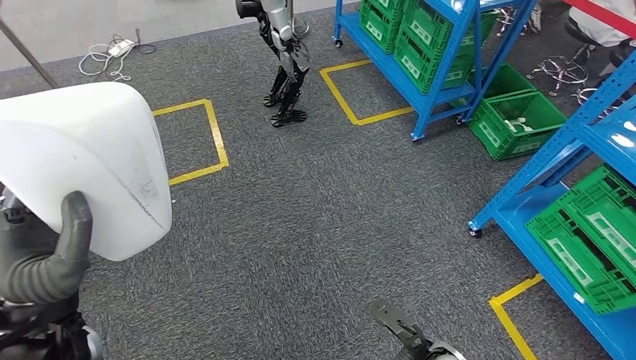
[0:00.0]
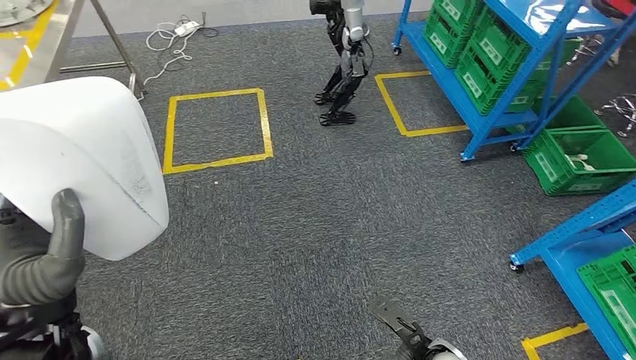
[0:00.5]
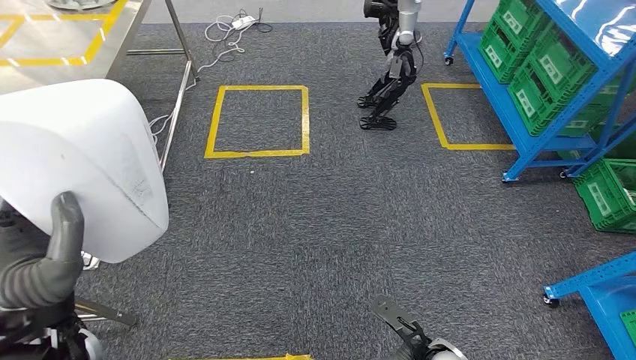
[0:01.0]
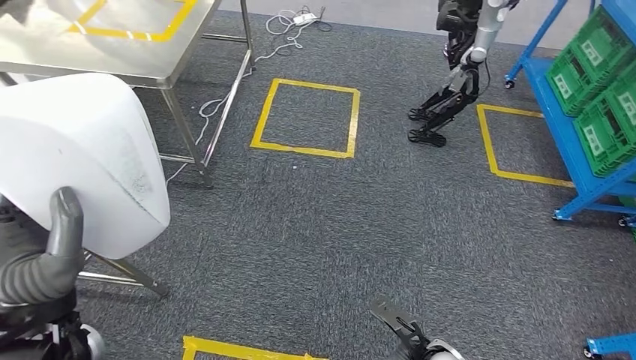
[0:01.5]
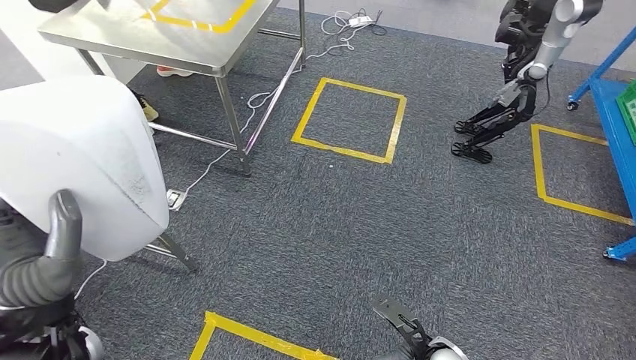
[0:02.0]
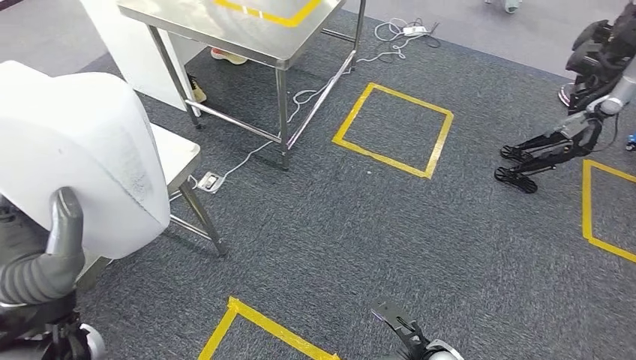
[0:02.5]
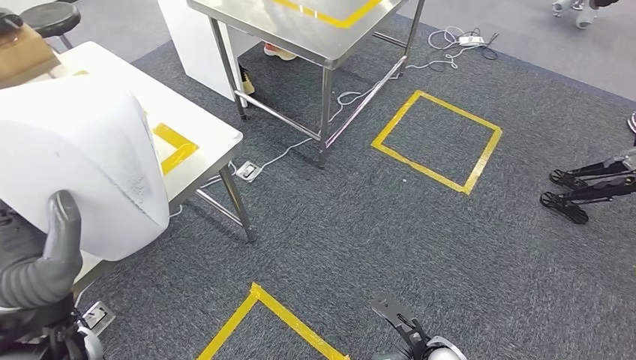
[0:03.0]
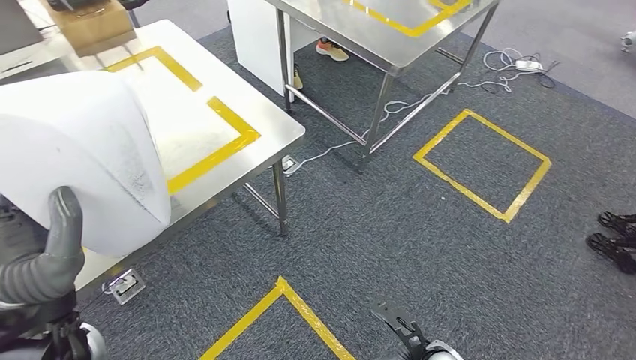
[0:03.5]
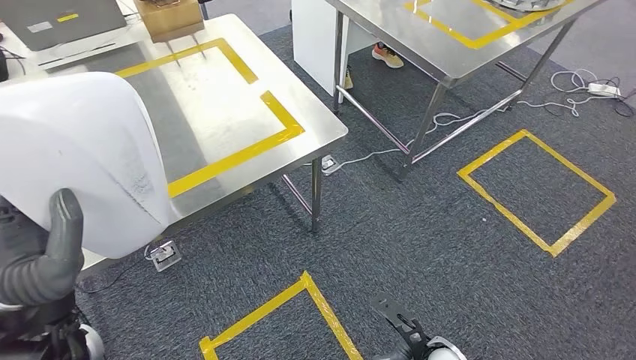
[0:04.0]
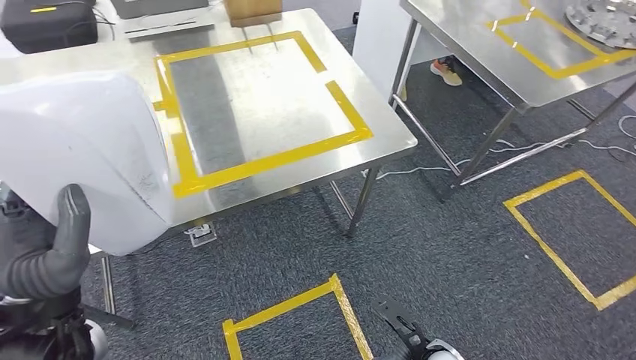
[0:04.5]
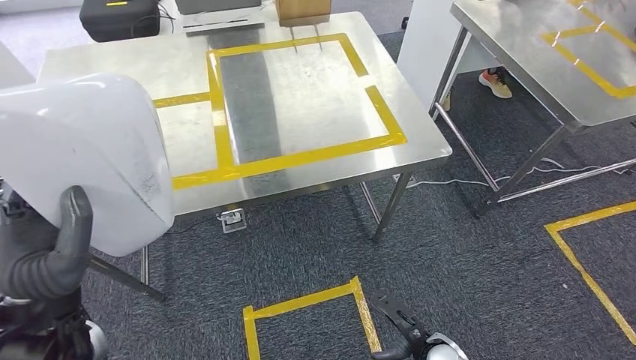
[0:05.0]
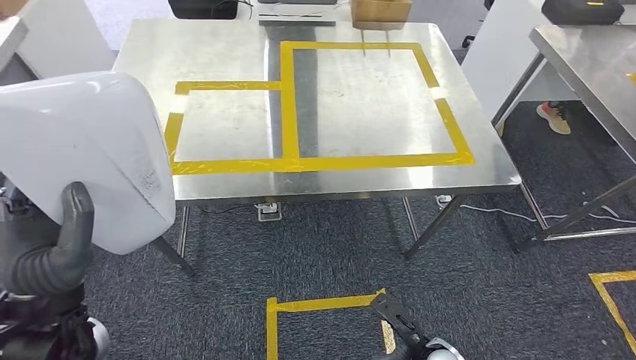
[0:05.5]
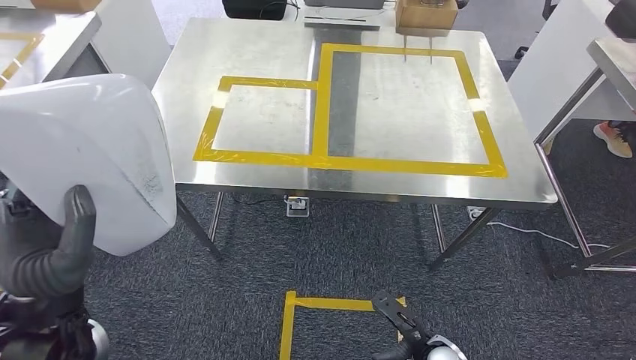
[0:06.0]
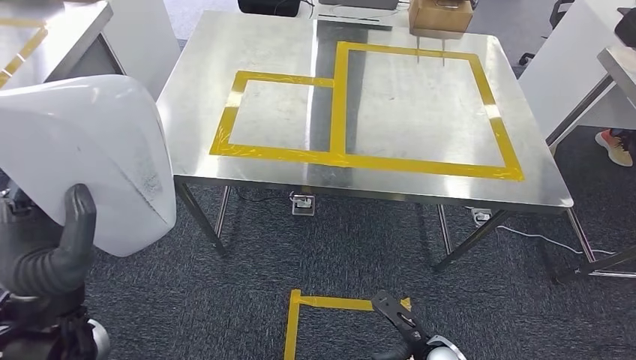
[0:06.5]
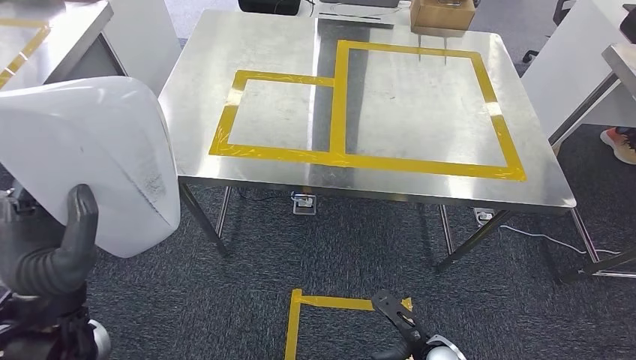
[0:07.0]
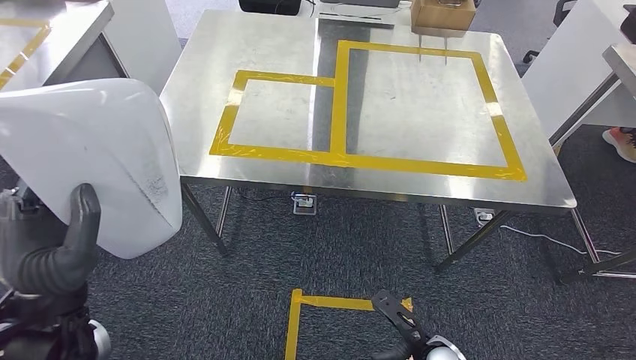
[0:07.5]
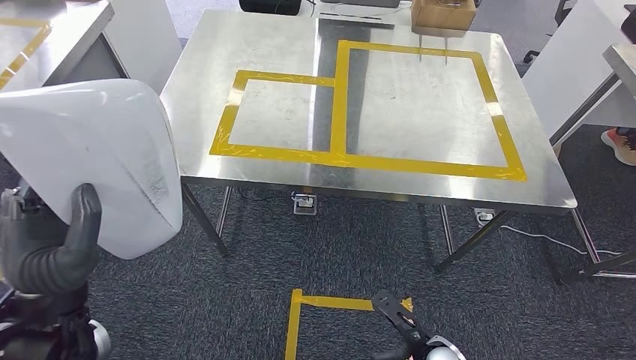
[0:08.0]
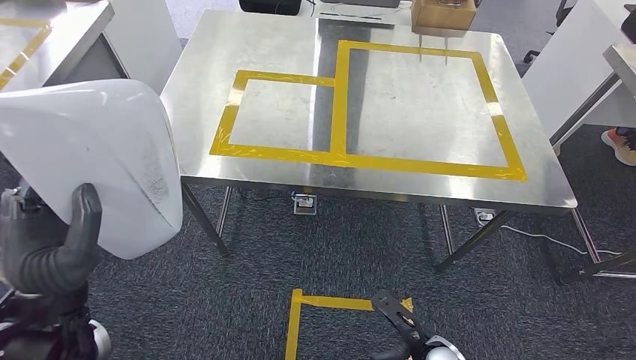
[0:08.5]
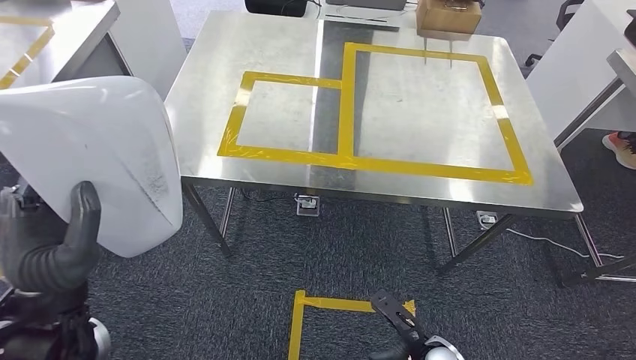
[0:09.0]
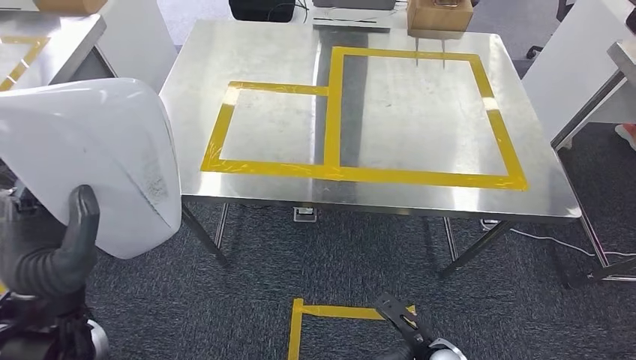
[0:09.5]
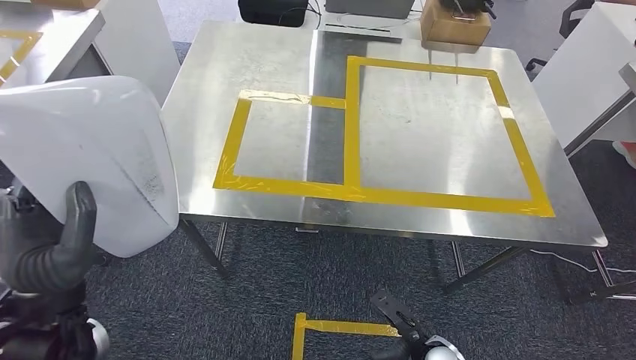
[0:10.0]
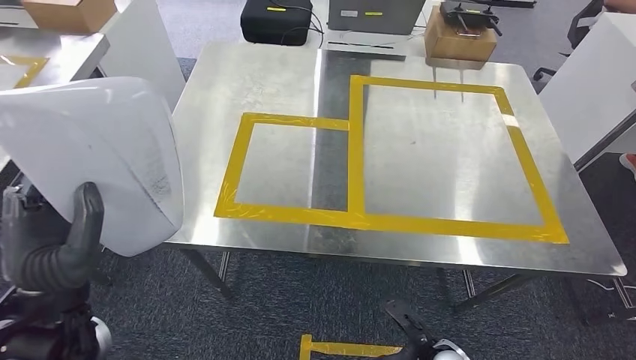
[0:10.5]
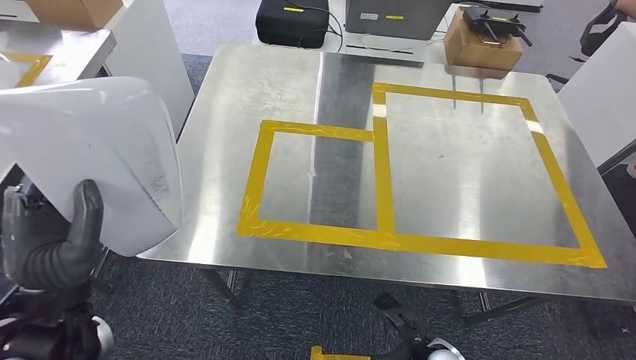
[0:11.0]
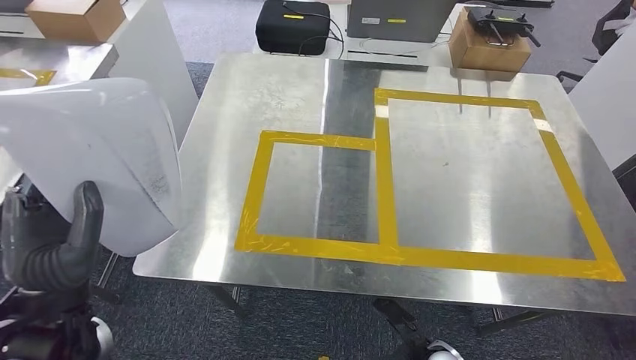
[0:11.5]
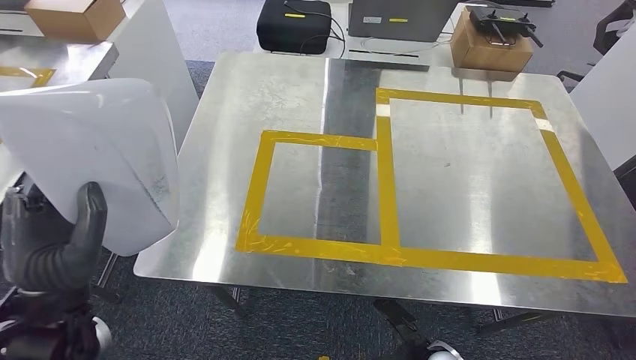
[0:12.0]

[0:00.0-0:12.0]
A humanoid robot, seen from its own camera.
Step, 0:00.0 to 0:11.0: Move the small parts to the workbench.
0:06.0 to 0:08.0: The two hands keep their place.

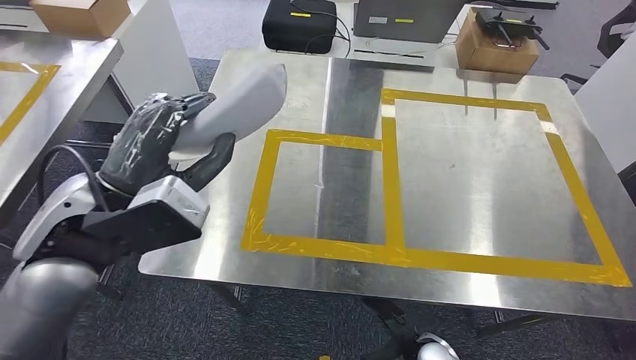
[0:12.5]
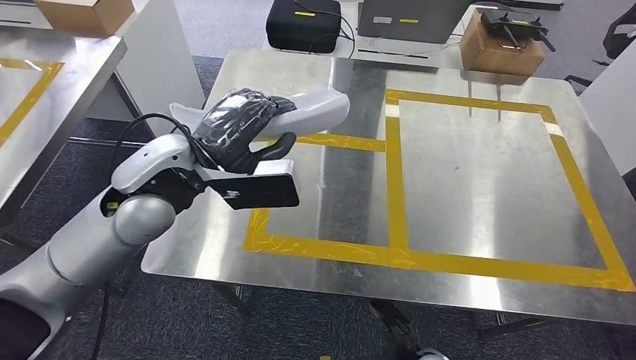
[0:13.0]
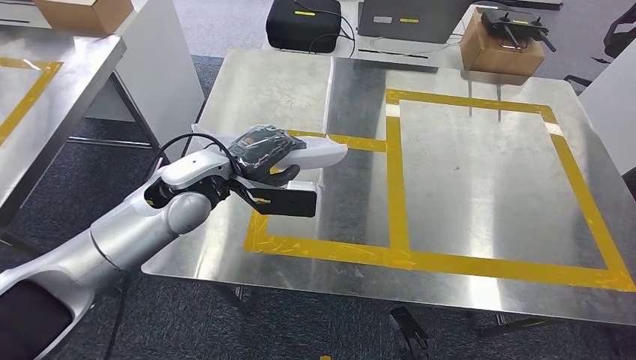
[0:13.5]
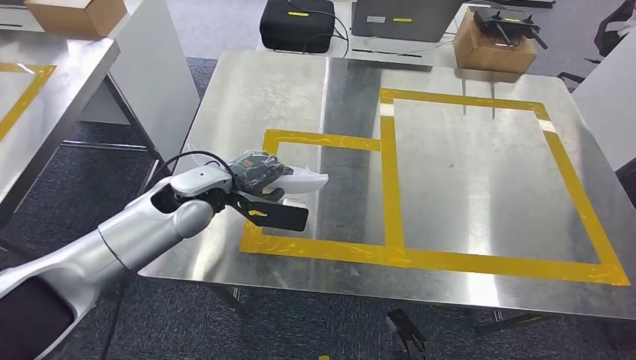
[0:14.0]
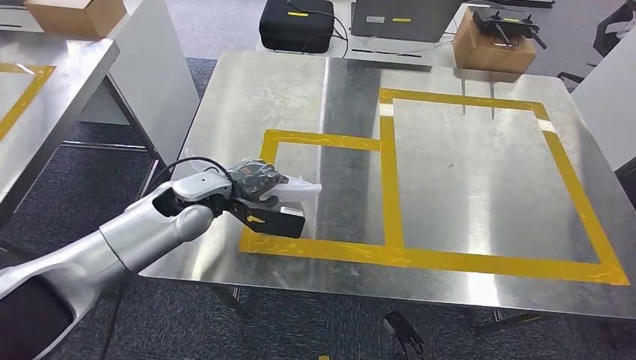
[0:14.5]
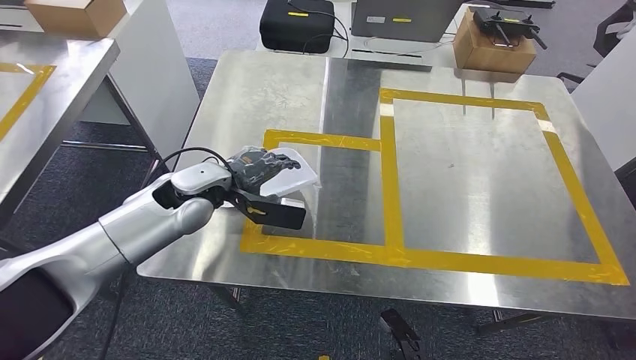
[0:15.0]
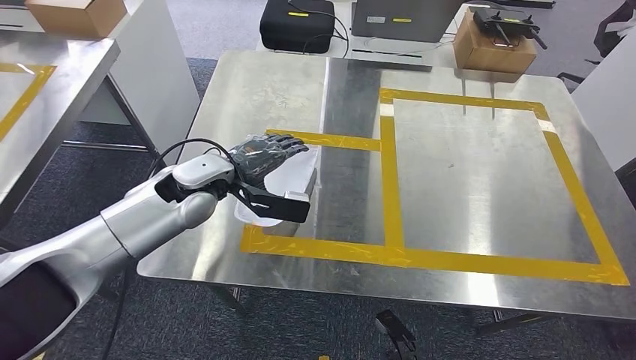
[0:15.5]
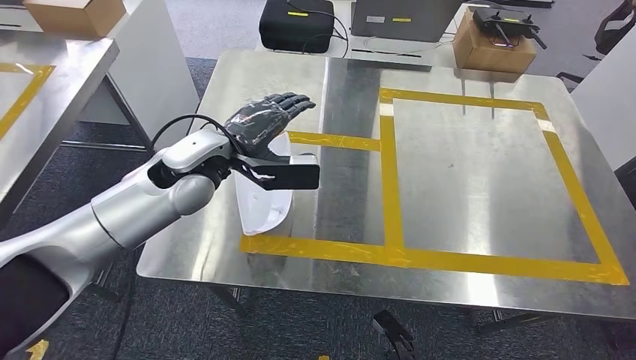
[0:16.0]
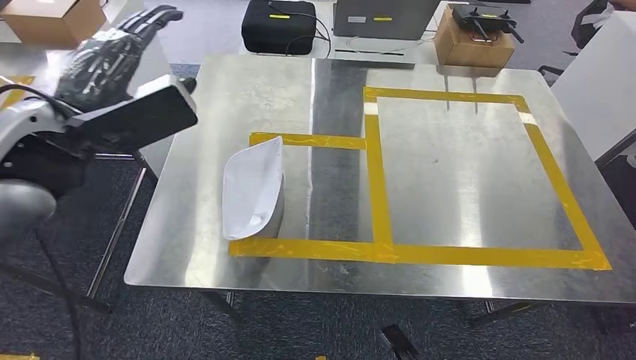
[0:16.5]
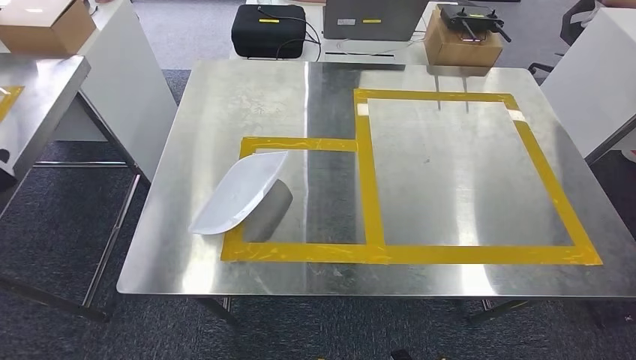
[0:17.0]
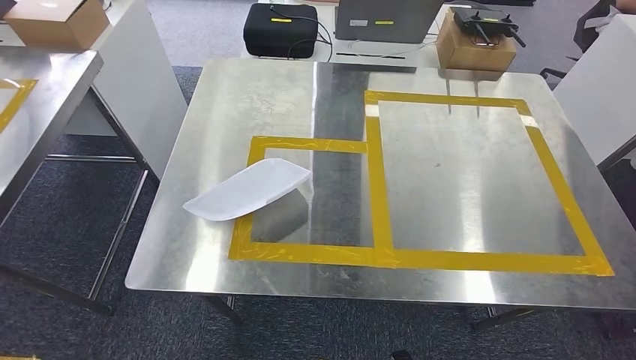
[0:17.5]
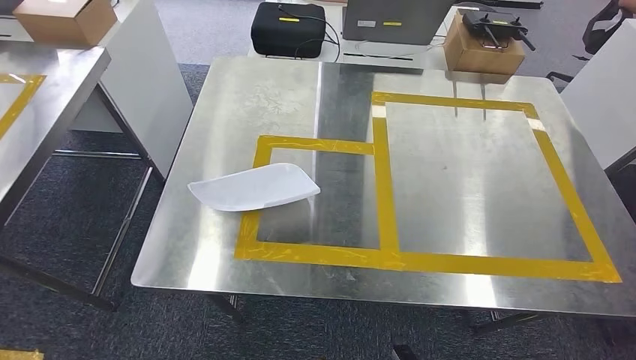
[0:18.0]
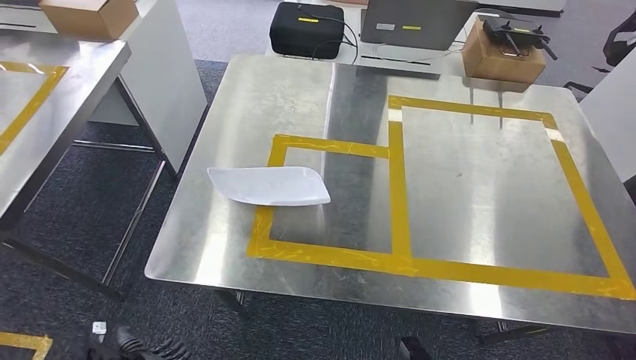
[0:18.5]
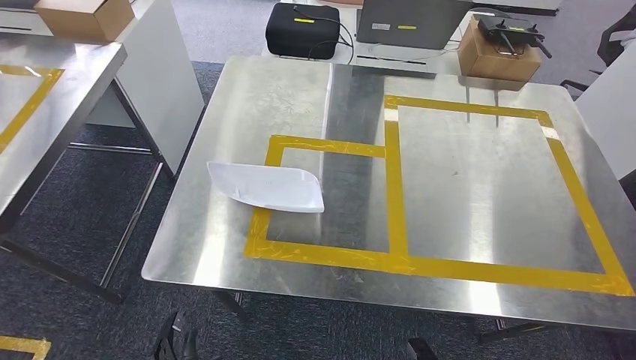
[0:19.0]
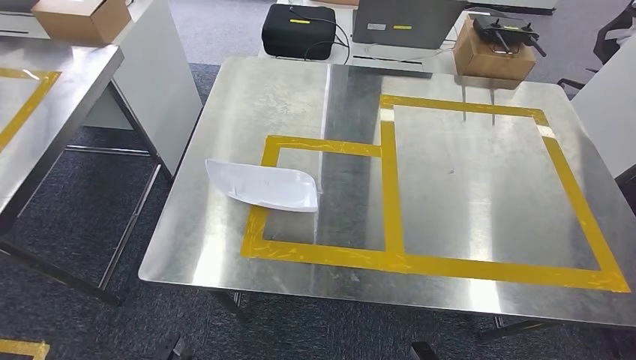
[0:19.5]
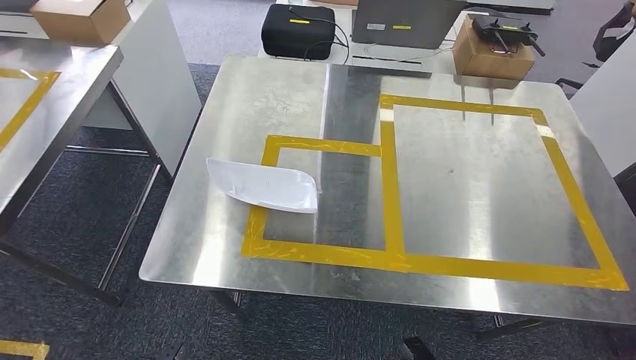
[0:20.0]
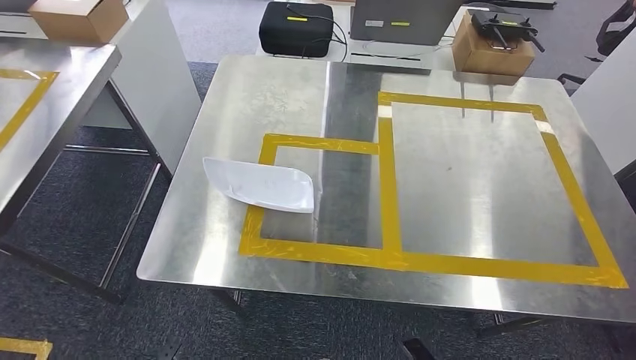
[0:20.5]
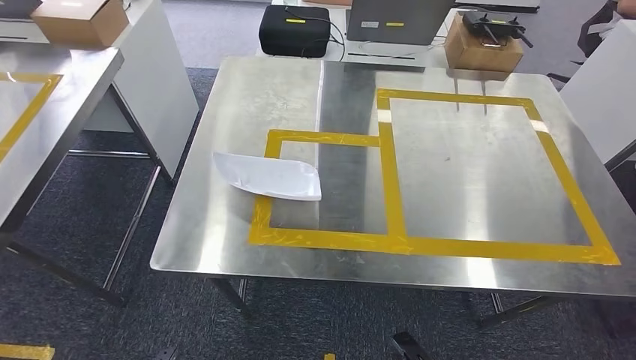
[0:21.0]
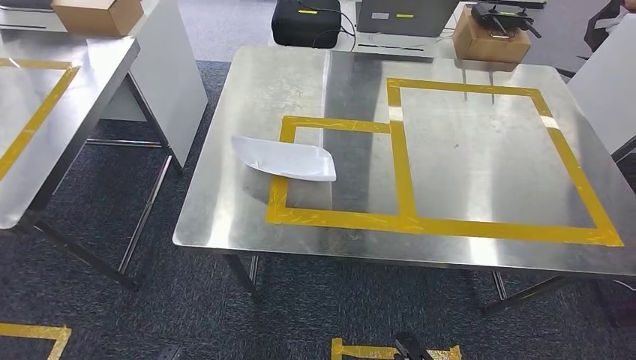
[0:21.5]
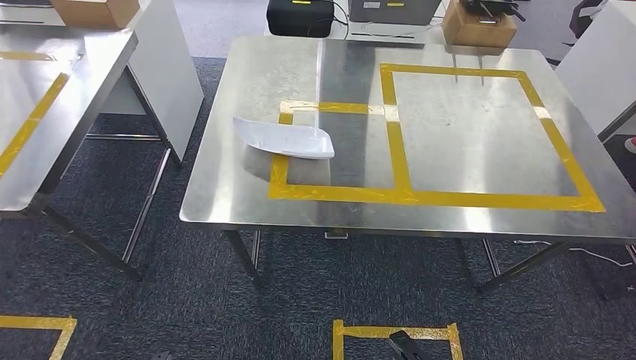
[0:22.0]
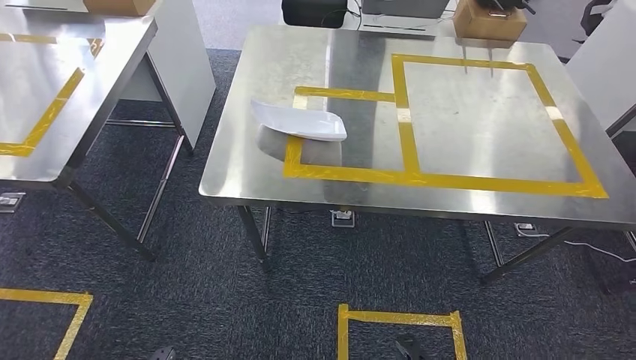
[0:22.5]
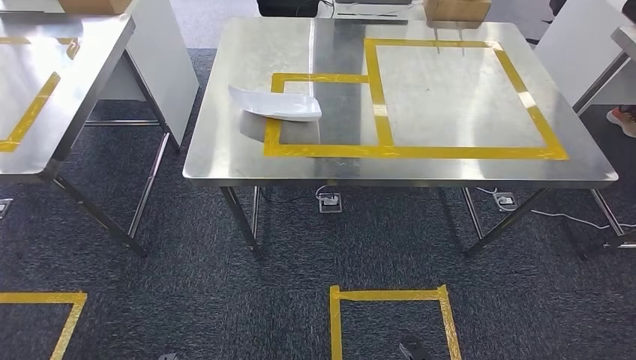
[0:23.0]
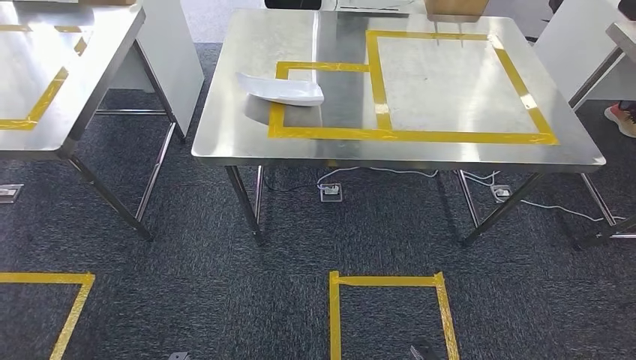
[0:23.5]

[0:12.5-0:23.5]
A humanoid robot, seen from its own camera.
Step, 0:14.0 to 0:19.5: Insert the small parts into the corresponding holes on the workbench.
0:14.5 to 0:16.0: The left hand goes about 10 cm upward.
